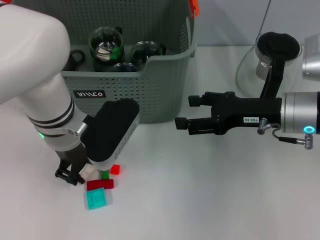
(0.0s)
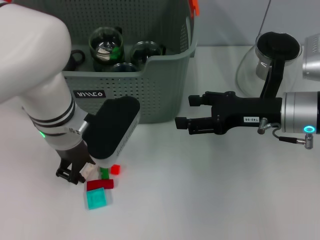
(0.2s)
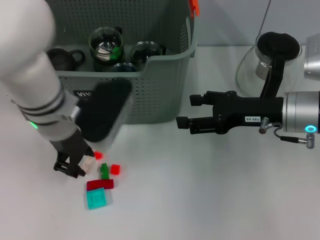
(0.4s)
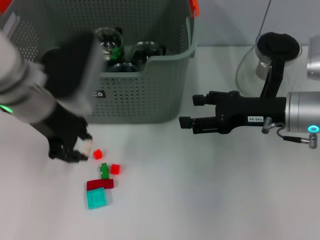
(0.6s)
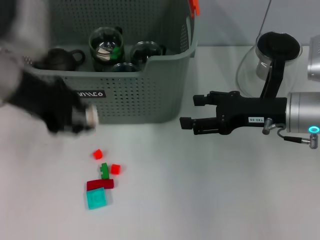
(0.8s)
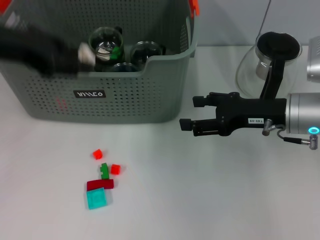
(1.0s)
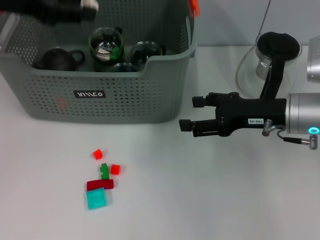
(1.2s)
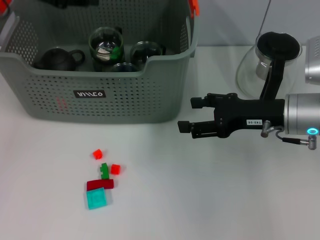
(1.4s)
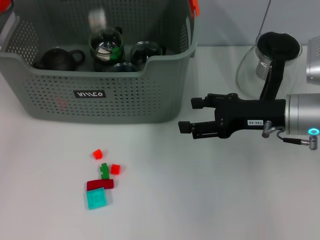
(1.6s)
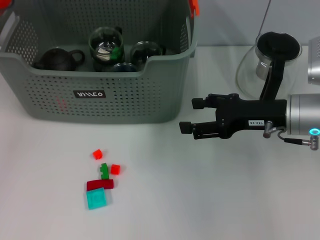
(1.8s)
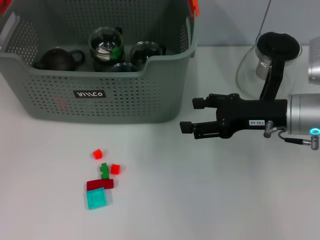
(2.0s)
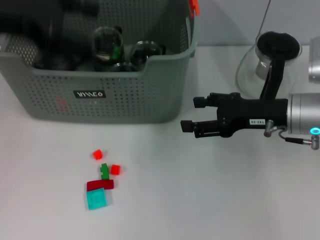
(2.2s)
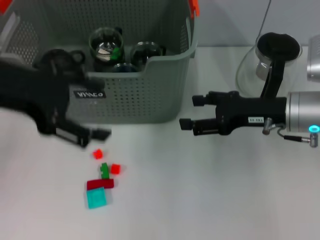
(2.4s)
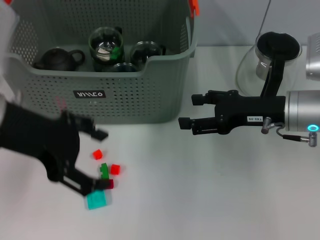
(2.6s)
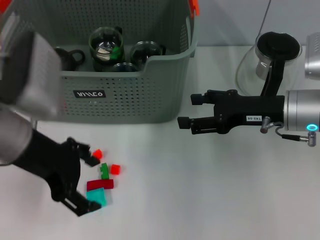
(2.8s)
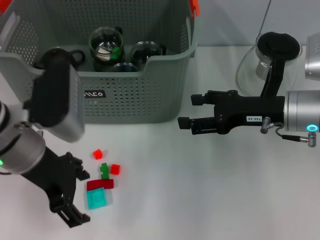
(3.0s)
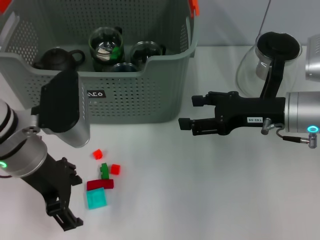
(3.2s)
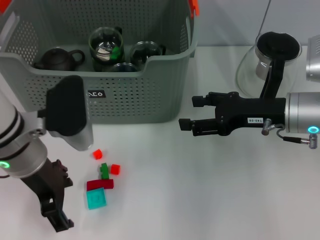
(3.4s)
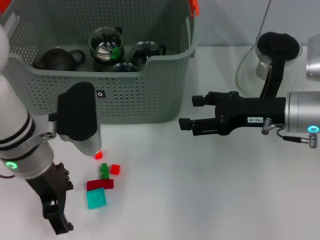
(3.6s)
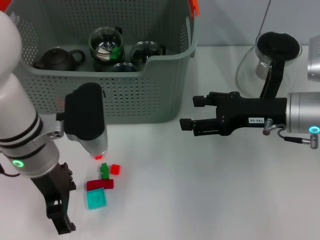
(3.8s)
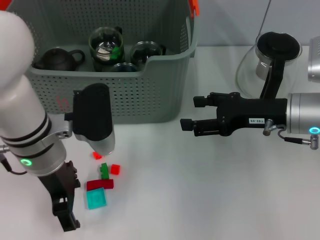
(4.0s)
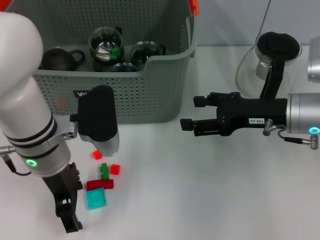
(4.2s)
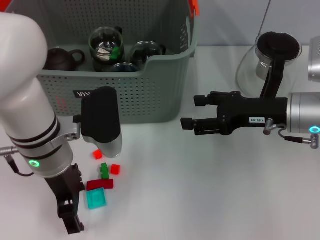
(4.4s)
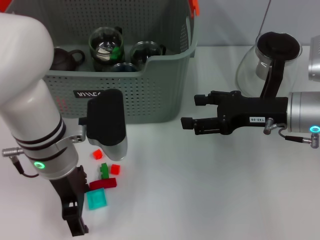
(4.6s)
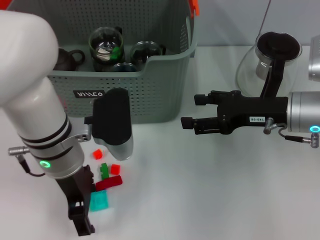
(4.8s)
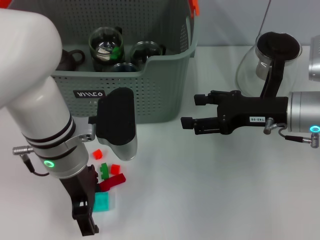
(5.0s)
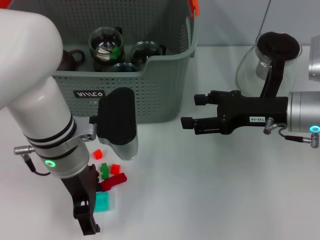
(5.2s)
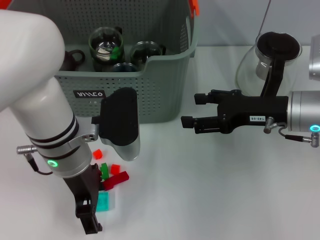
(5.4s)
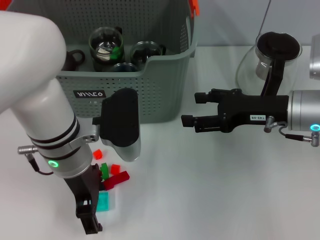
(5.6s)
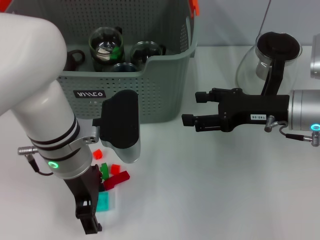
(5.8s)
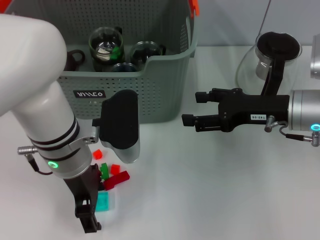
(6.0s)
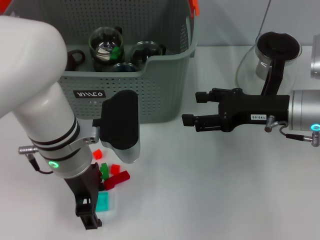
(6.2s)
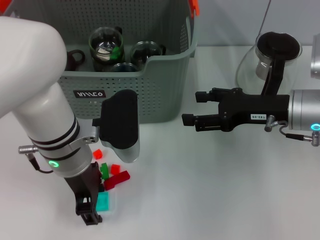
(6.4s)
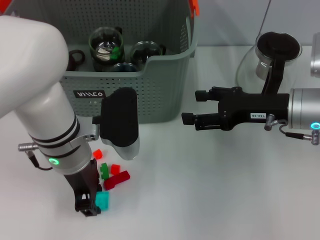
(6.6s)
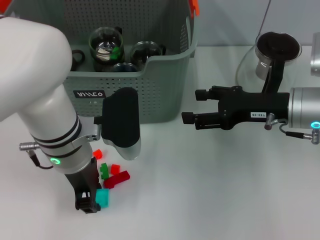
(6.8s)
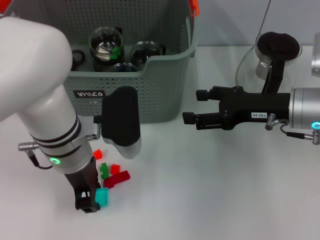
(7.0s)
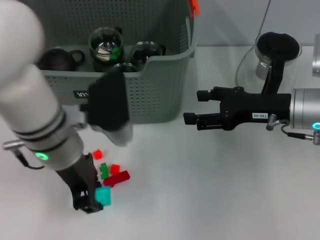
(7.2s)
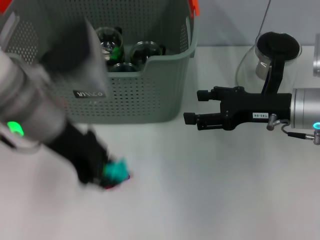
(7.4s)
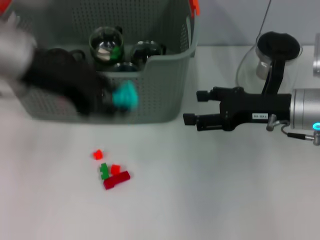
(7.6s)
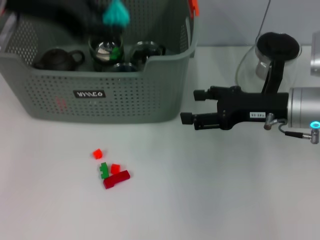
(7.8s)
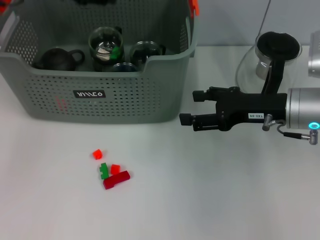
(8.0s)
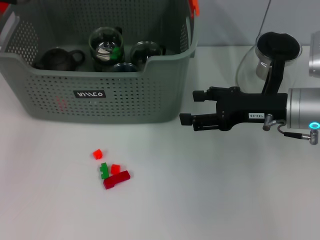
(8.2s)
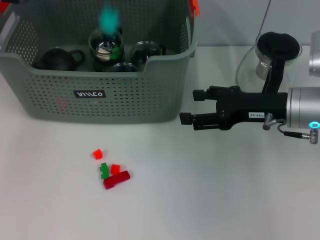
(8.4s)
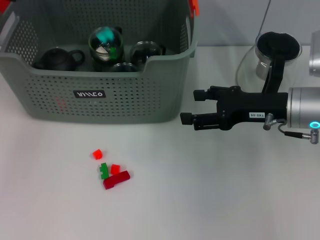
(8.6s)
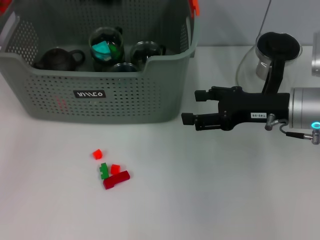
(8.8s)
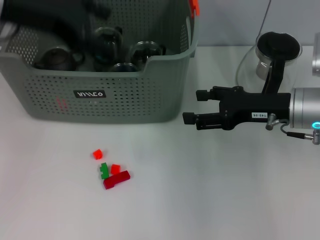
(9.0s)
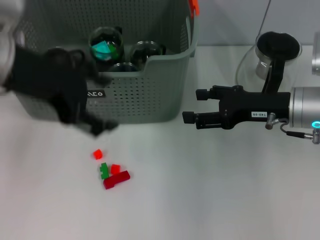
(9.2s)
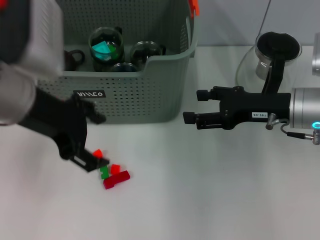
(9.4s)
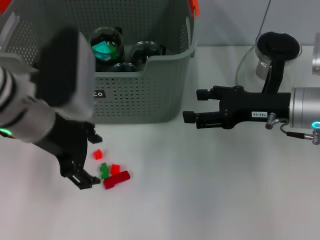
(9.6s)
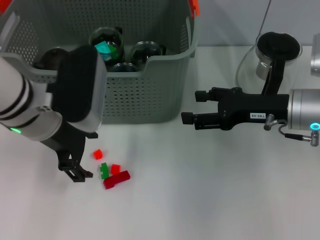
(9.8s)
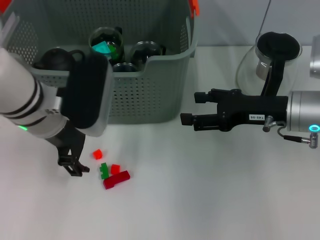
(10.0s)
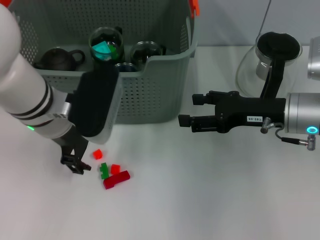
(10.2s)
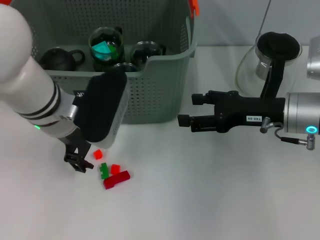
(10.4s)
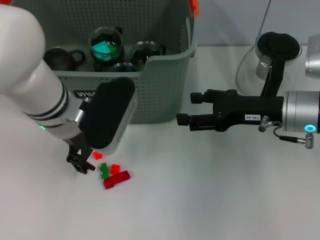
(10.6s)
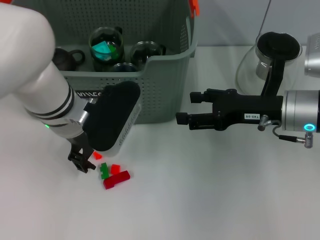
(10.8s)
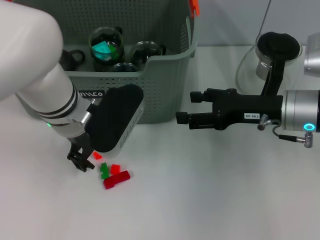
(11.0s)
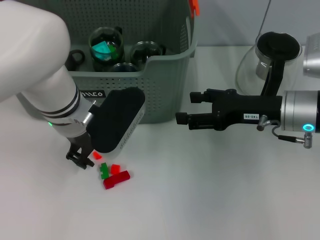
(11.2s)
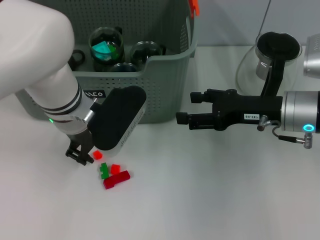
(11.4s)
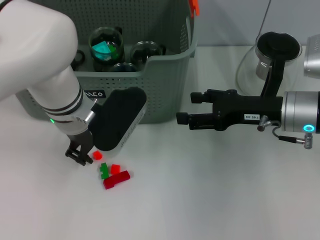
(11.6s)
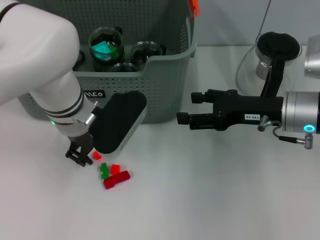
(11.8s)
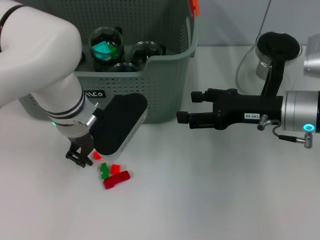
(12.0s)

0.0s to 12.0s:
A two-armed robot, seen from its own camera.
Task of the whole recording: pick up the teacup on the table and place it into the storage bin, pick up the block on the table and place it into the storage bin.
Step, 0.2s to 1.8s: Place the white block in the storage box with left gripper.
Step, 2.2s to 6.8s: Grasp the light blue block with left gripper.
Step, 7.2s to 8.6s: Place the light blue block in the storage box with left gripper.
0.0s to 1.6s: The left gripper shifts about 20 cm upward, to the left and forward.
1.6s to 3.0s: The left gripper goes approximately 20 cm backward, downward and to the right, and opens its fingers.
3.0s to 4.4s: The left gripper shifts by some 5 cm.
6.0s to 7.6s: The left gripper is displaced upward and to the left by about 15 cm, and closes its fingers.
7.6s to 9.0s: The left gripper goes forward and returns, about 15 cm each way, and opens.
9.0s to 10.4s: The left gripper is displaced downward and to the right by roughly 15 cm.
10.4s to 12.0s: There are only small adjustments of the grippers.

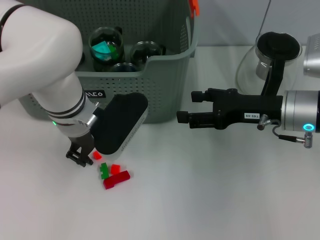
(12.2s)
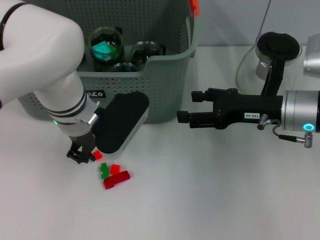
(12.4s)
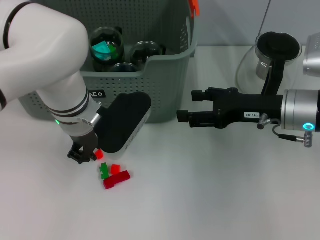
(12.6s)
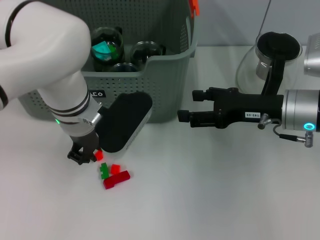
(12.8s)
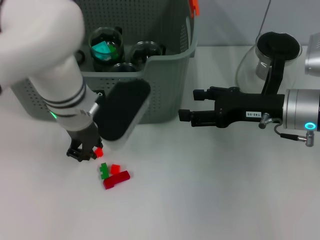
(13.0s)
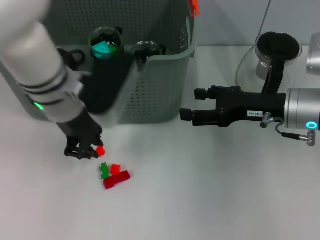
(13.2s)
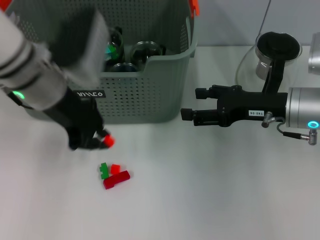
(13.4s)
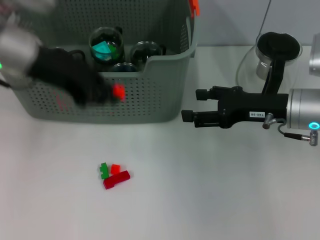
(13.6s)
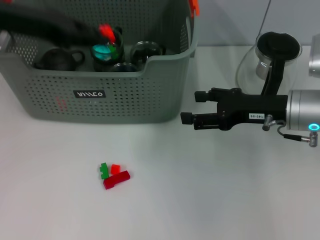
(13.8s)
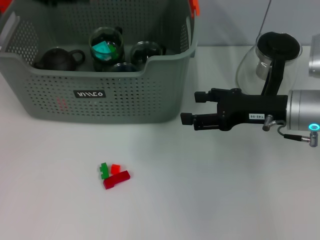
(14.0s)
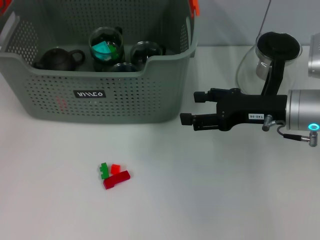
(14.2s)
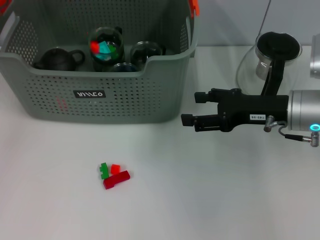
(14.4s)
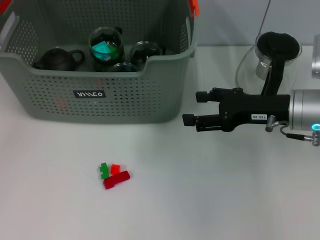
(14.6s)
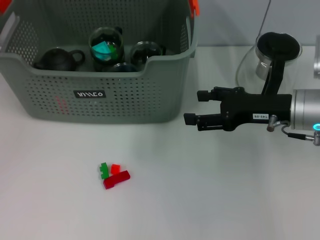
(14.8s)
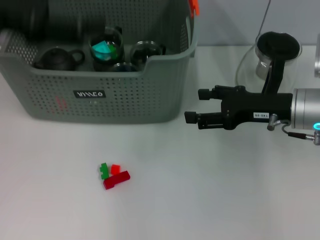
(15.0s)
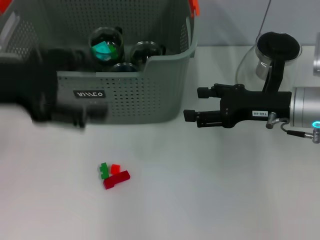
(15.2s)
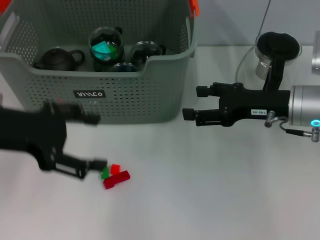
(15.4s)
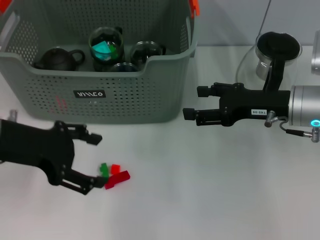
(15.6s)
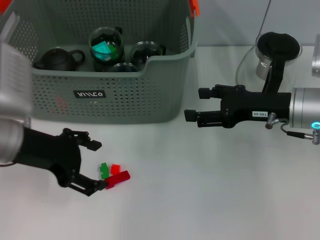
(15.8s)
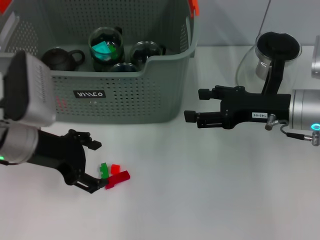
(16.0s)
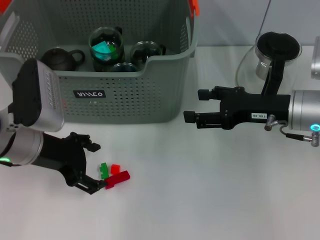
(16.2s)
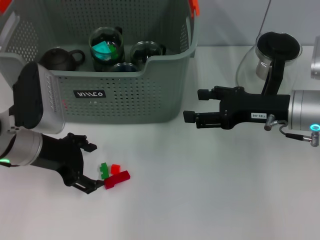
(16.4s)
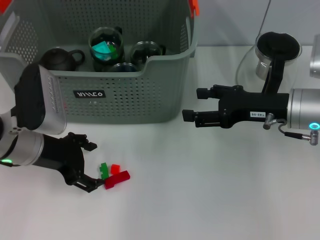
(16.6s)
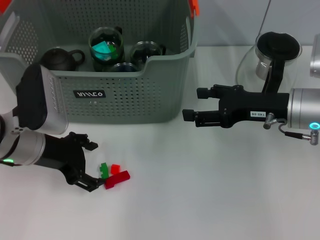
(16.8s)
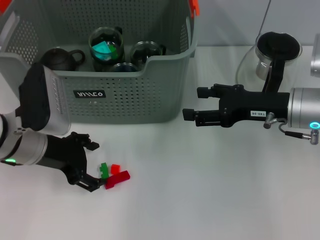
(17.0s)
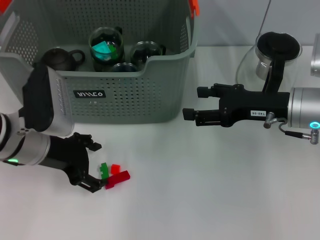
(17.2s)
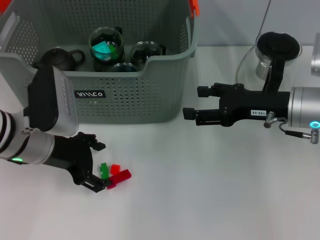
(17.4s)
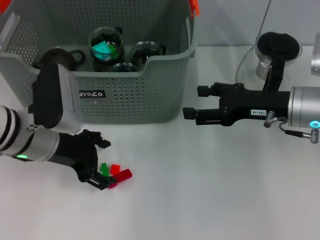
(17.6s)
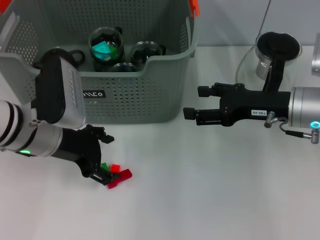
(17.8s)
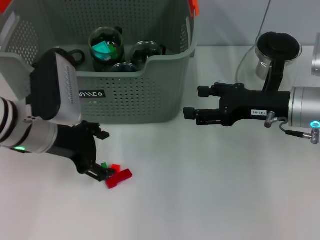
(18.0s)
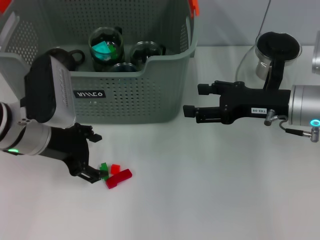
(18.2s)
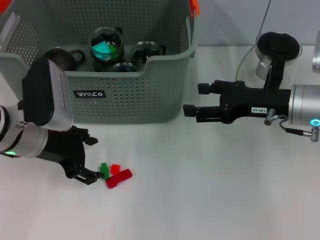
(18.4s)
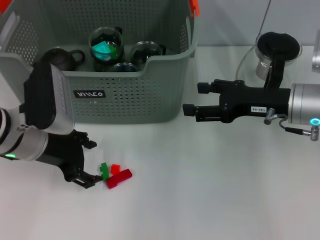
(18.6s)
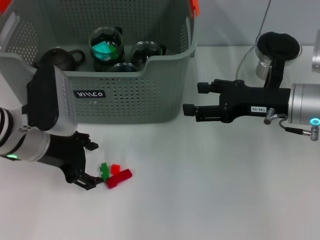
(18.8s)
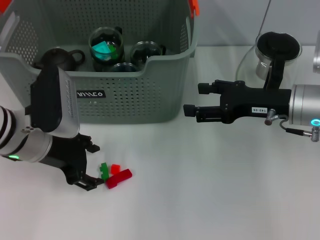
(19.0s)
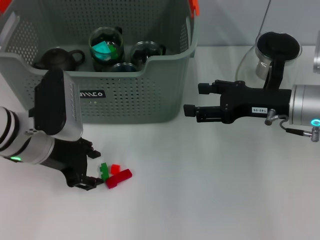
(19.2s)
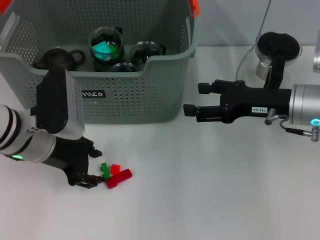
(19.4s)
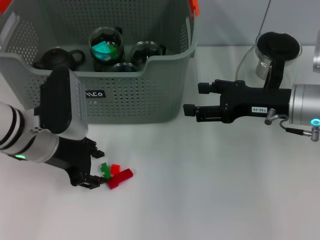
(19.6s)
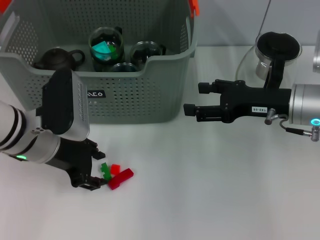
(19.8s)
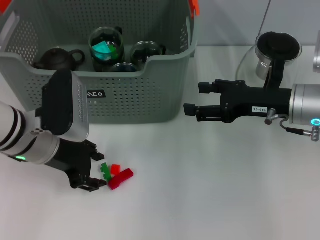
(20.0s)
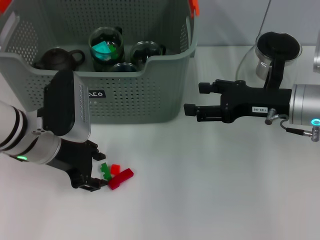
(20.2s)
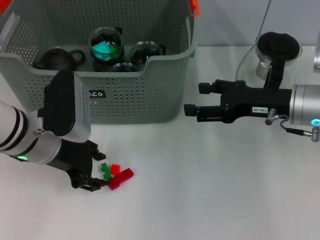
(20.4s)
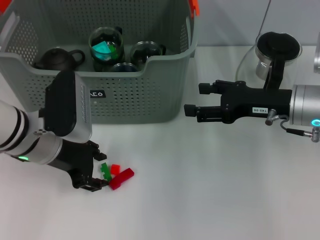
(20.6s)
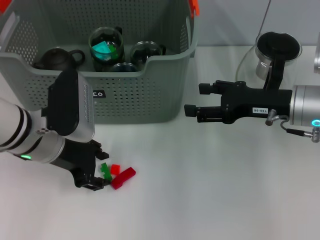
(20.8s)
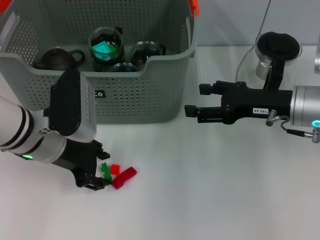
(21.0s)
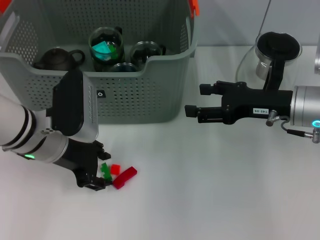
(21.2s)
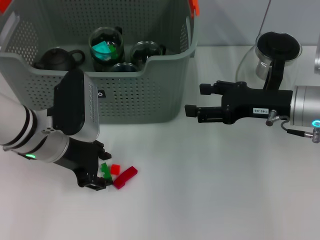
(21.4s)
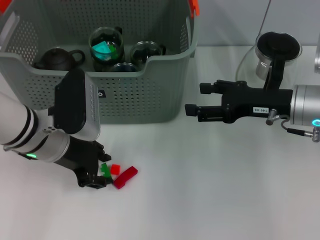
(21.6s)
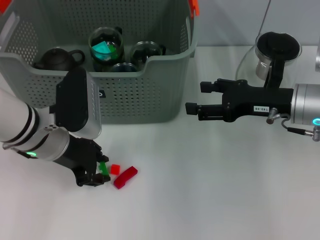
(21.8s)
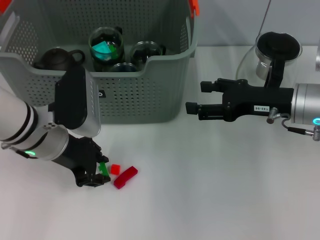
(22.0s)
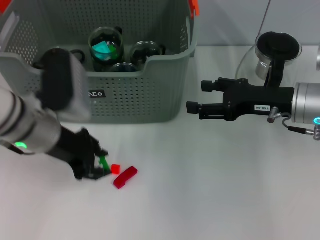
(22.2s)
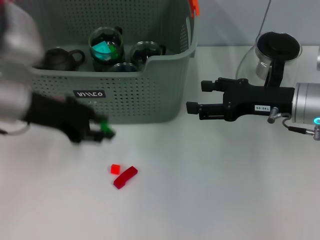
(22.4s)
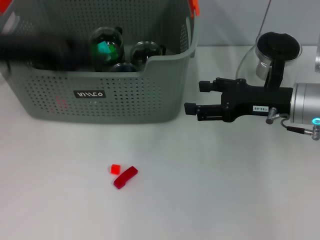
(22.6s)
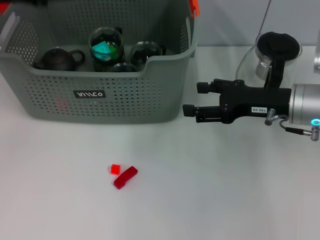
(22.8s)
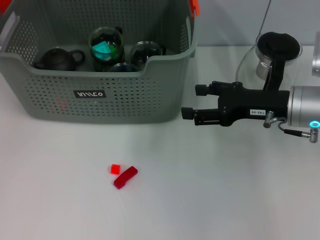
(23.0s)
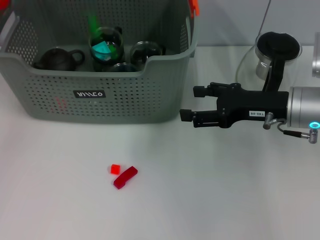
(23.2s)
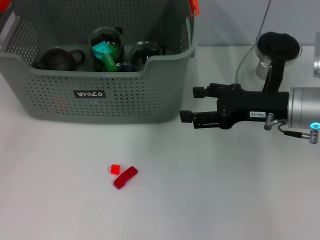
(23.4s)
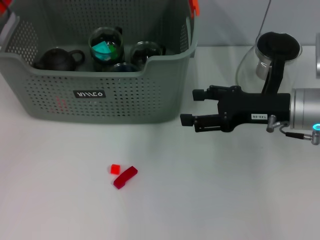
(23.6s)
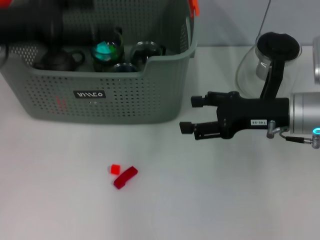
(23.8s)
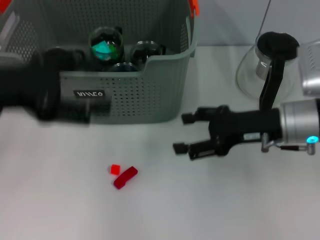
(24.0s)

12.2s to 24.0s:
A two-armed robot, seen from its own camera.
Task of the whole recording: pick up the teacup on the table and place it into the storage bin, pick up the block on the table and place it into the storage bin.
Step, 13.0s to 14.6s: Place the orange block in the storage box with left gripper.
Step, 15.0s to 21.6s: Grasp the green block with left gripper.
Step, 22.0s to 23.4s: Place the green block in the storage box with left gripper.
12.2s to 13.6s: The left gripper travels upward and to the left by roughly 15 cm.
13.6s to 15.2s: The left gripper travels backward and to the left by roughly 10 cm, and opens its fingers.
15.2s to 16.6s: The left gripper goes about 10 cm downward.
16.6s to 19.6s: The grippers make only small movements.
19.6s to 21.0s: Both grippers stay about where they are.
21.0s to 22.6s: The left gripper heads upward and to the left, covering about 15 cm.
22.6s to 24.0s: The left gripper moves backward, about 5 cm, and opens.
